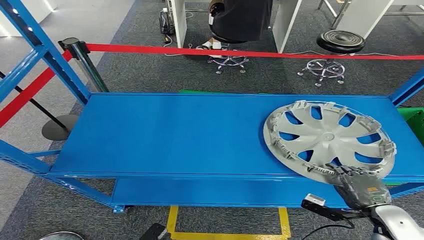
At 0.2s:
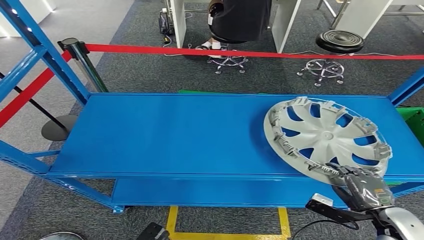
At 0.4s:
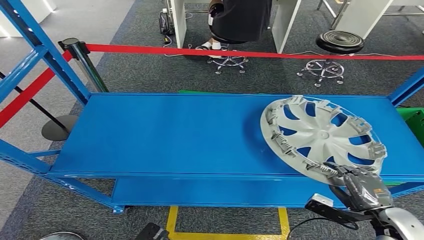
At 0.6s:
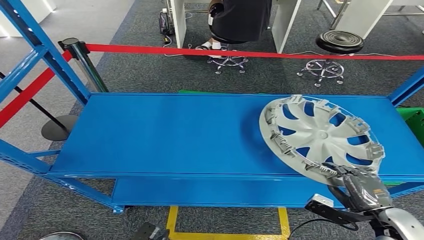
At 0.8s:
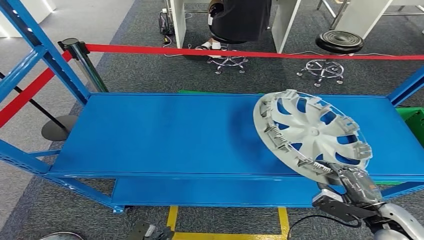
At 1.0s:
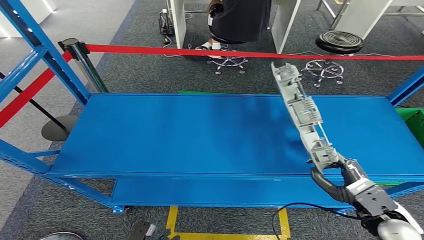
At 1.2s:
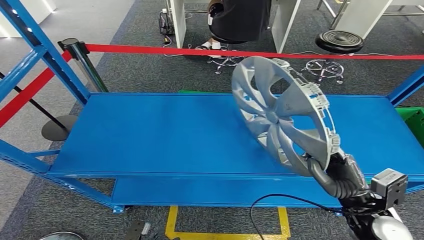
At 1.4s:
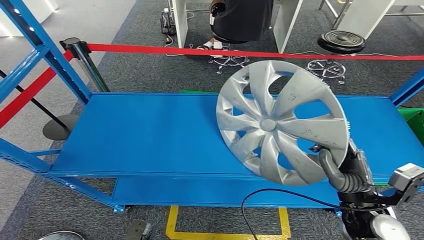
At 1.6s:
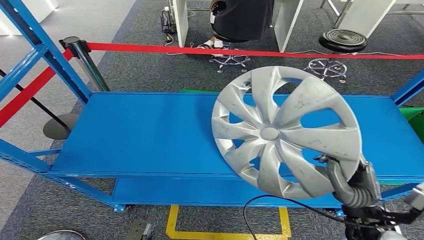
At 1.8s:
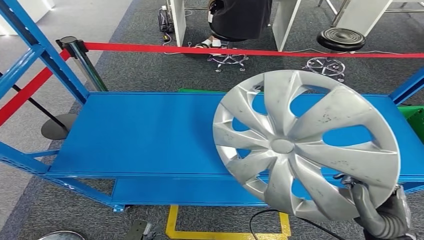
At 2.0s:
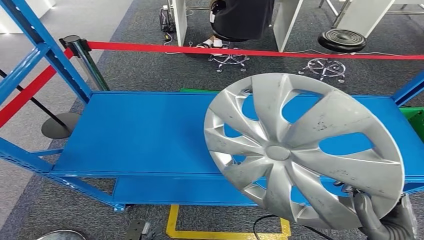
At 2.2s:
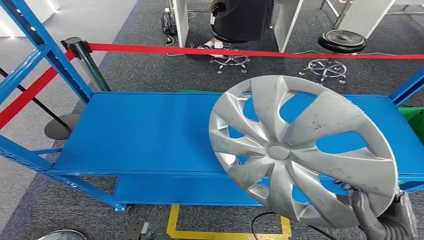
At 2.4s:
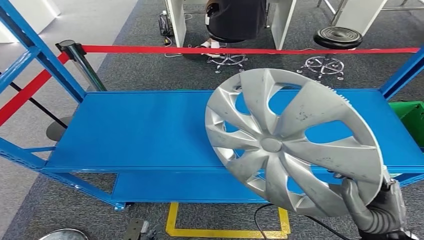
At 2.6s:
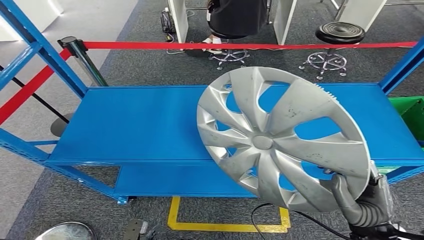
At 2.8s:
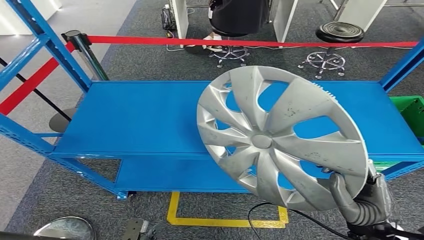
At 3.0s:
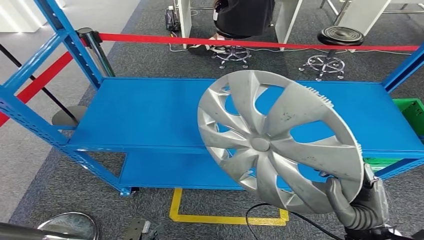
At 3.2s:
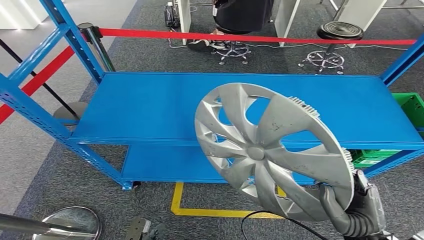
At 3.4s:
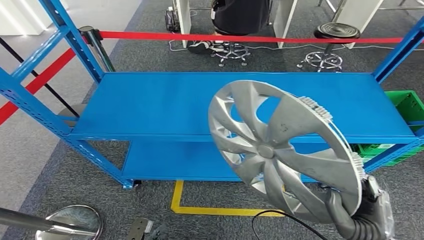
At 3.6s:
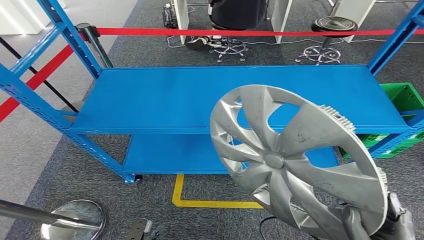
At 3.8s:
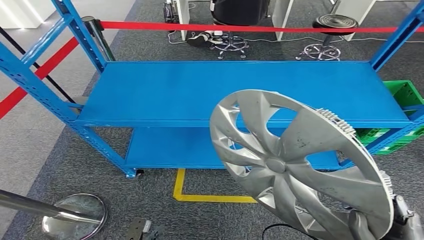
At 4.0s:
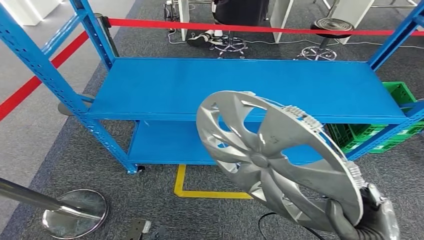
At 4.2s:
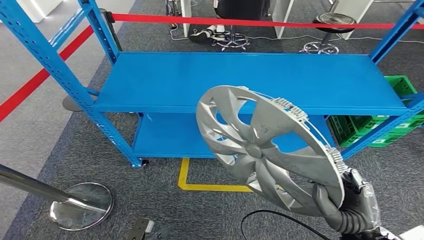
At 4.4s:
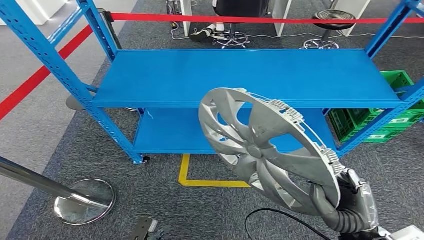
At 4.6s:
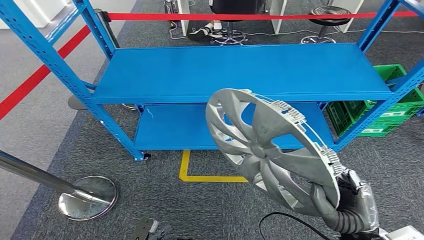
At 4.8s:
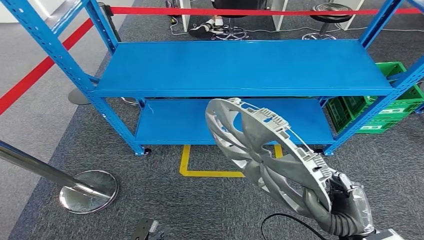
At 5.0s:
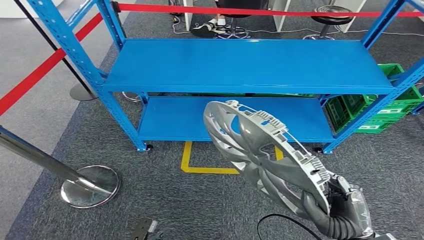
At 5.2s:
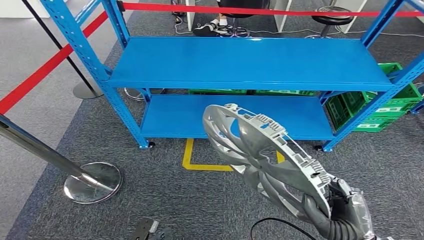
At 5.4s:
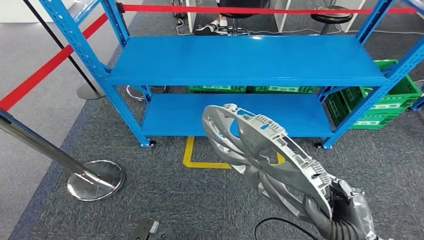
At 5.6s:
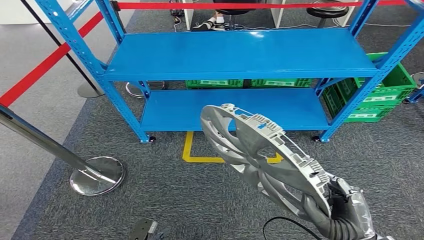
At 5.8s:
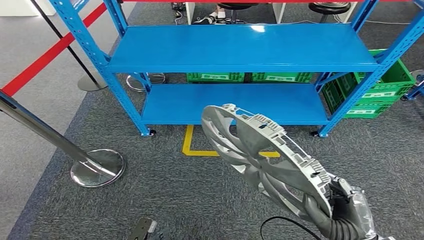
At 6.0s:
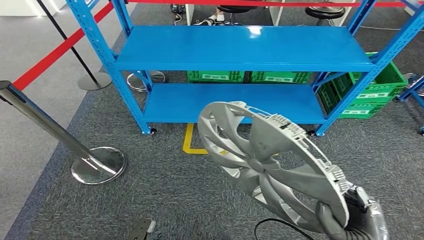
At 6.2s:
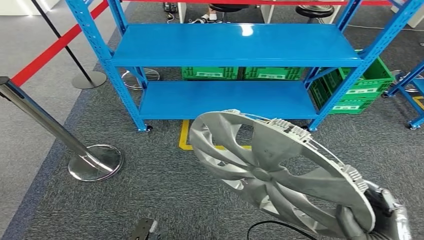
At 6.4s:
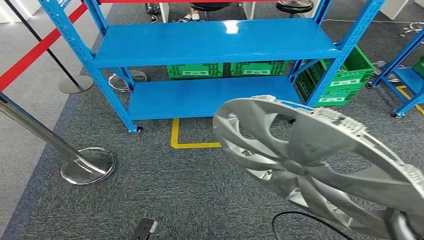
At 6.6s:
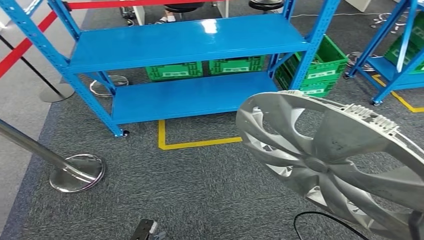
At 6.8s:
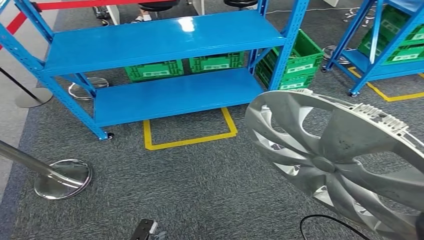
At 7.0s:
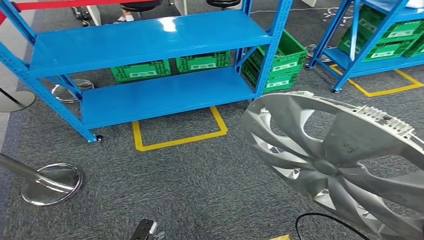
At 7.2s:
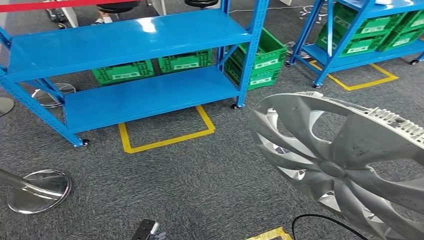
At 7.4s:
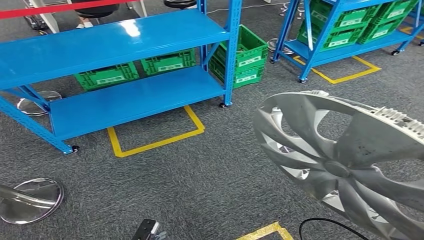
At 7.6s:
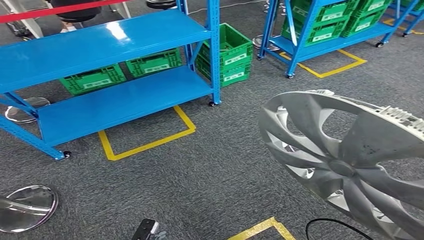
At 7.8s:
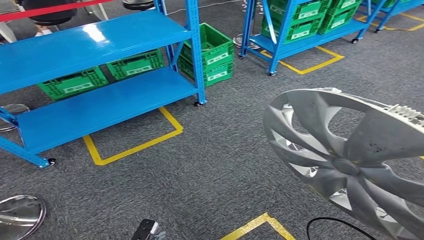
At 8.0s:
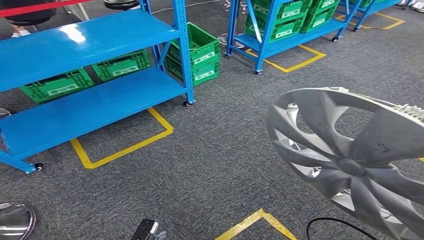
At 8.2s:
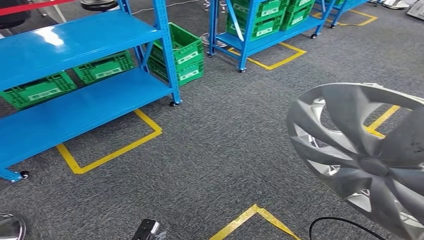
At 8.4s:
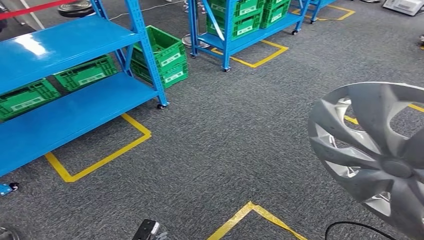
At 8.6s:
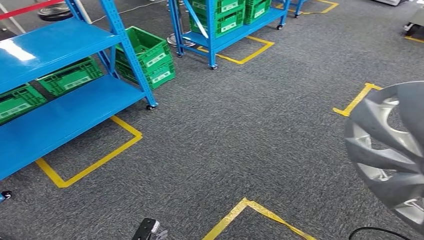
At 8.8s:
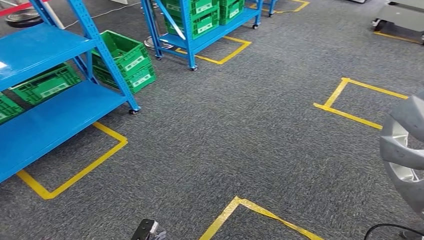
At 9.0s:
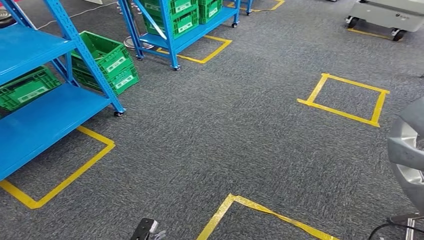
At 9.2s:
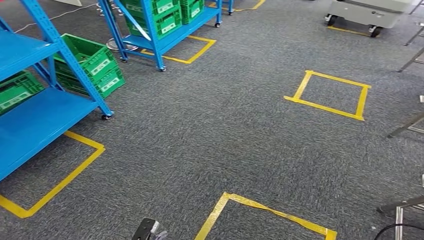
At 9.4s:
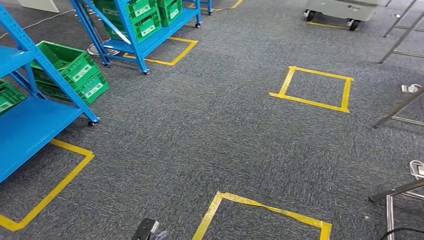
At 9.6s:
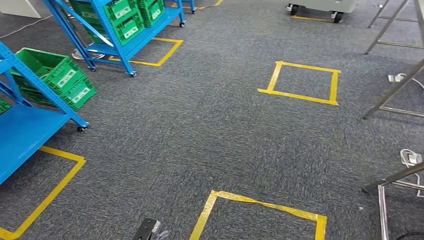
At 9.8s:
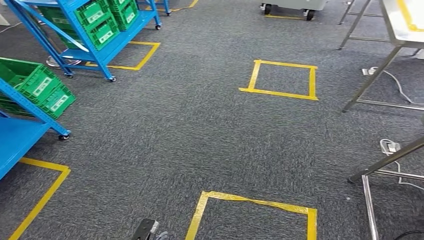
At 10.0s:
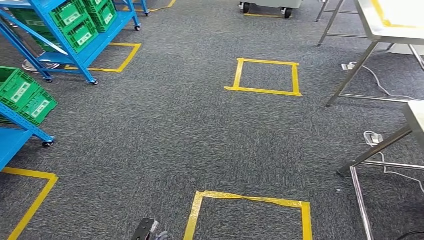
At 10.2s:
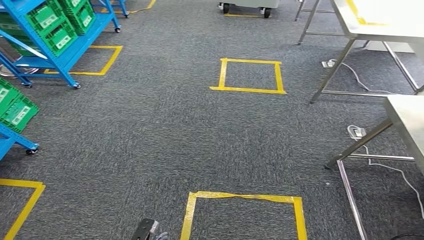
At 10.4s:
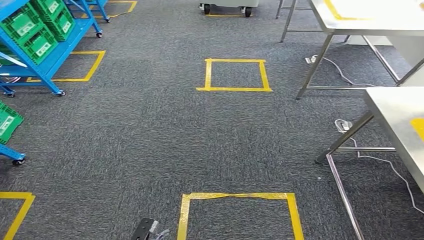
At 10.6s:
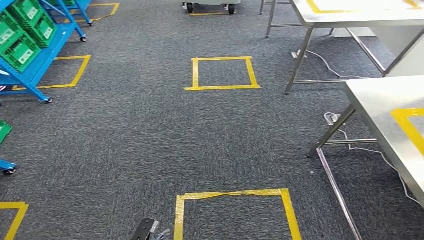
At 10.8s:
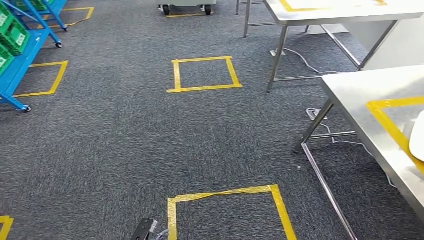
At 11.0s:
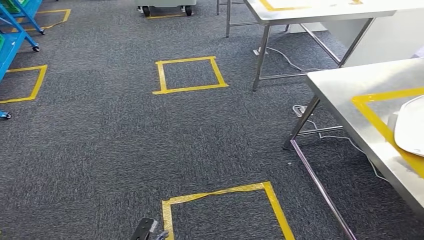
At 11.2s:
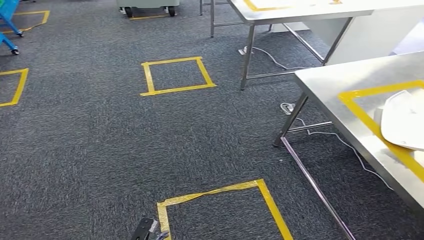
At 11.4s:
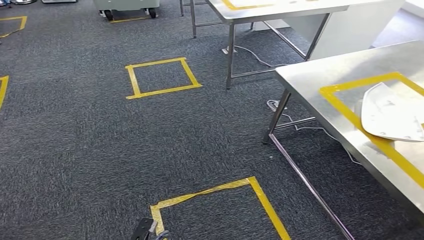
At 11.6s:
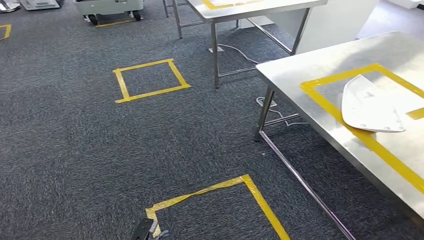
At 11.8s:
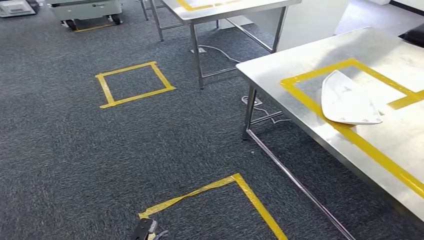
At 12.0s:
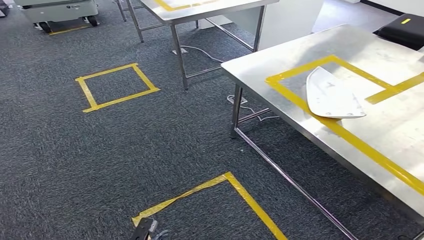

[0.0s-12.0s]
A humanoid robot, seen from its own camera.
Step, 0.0s to 3.6s: Take small components from the rack.

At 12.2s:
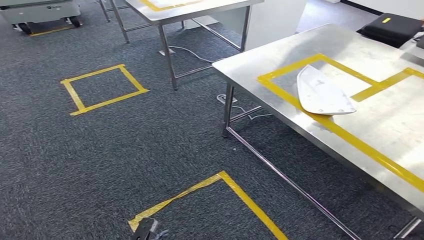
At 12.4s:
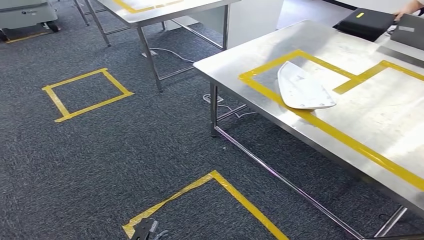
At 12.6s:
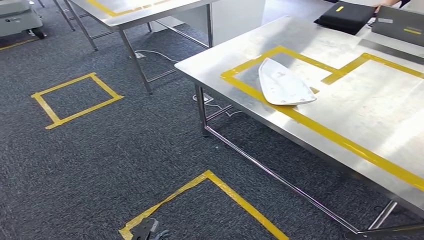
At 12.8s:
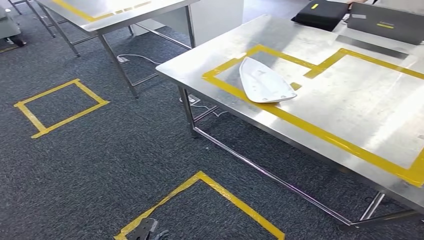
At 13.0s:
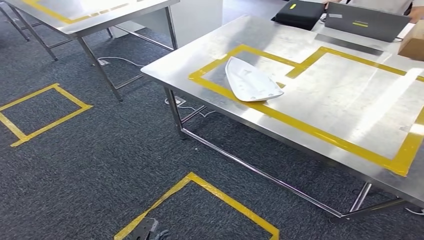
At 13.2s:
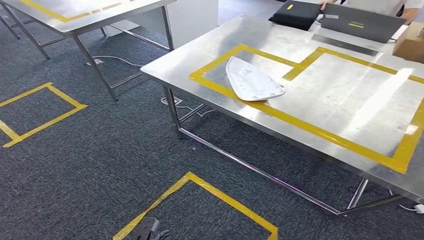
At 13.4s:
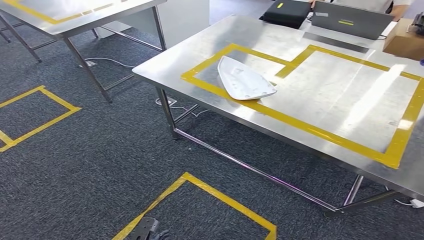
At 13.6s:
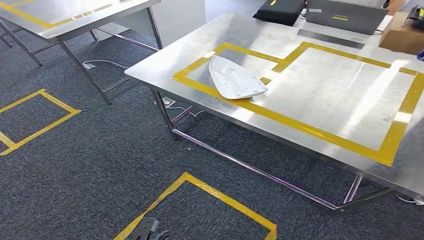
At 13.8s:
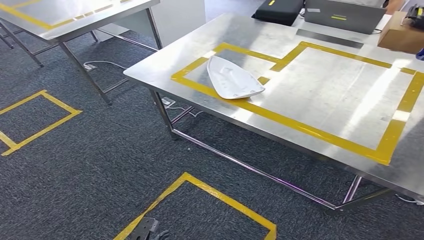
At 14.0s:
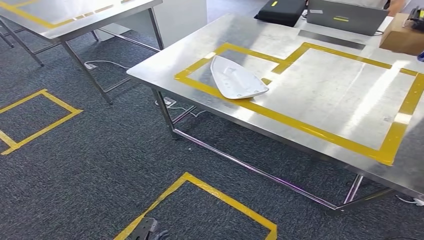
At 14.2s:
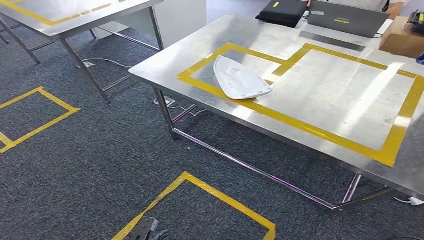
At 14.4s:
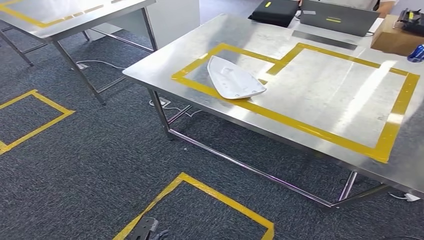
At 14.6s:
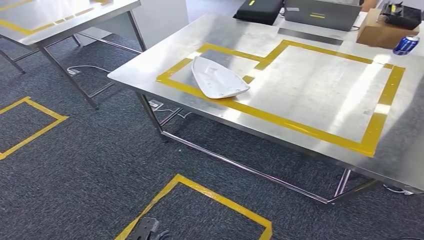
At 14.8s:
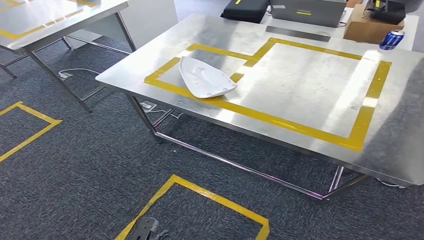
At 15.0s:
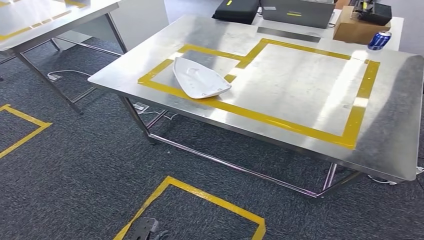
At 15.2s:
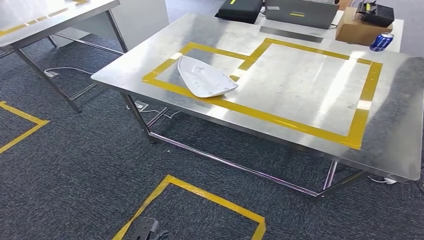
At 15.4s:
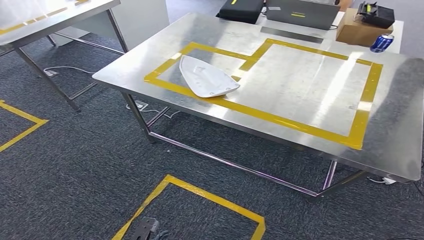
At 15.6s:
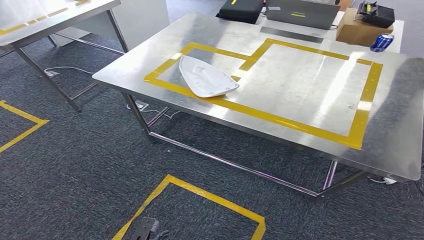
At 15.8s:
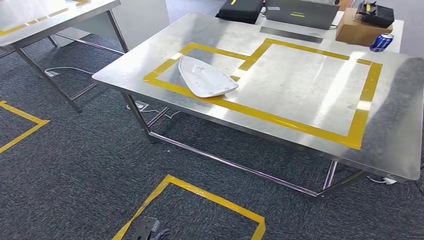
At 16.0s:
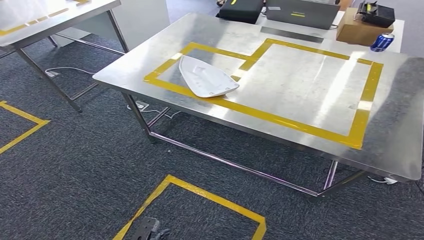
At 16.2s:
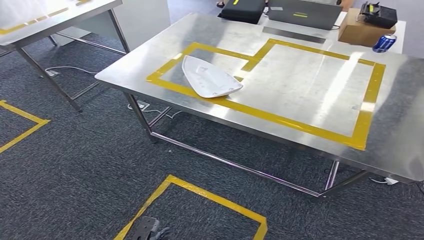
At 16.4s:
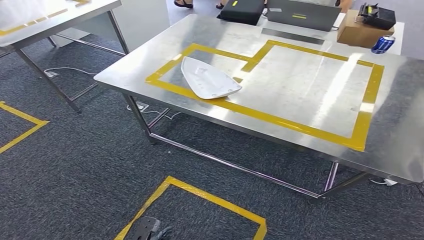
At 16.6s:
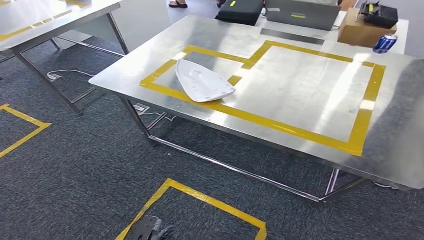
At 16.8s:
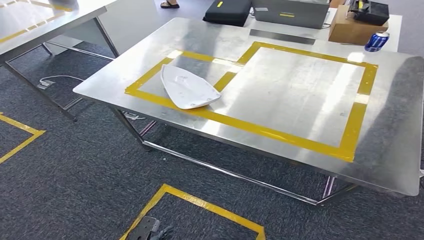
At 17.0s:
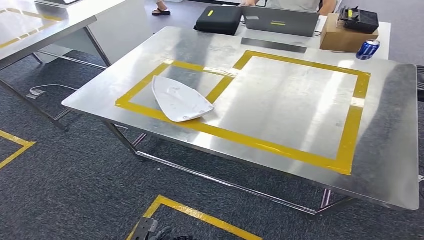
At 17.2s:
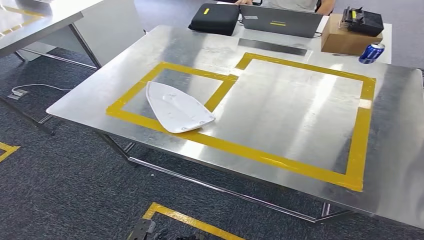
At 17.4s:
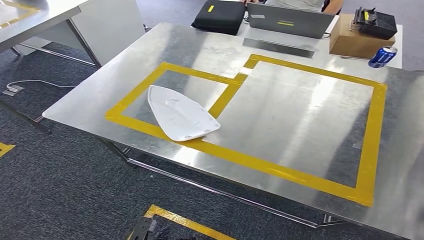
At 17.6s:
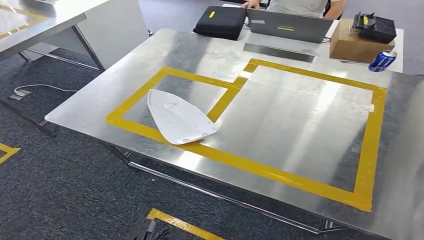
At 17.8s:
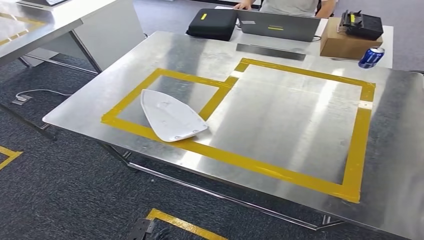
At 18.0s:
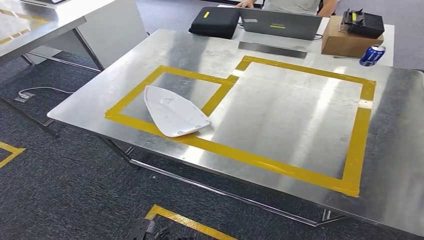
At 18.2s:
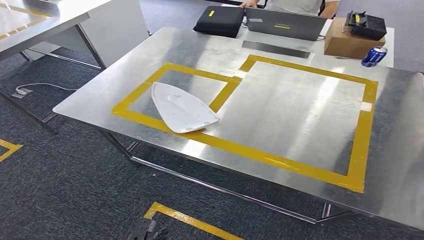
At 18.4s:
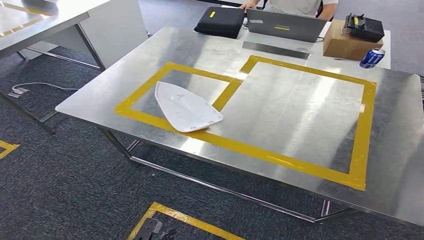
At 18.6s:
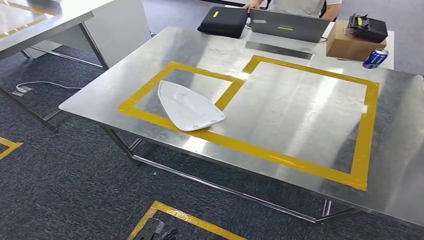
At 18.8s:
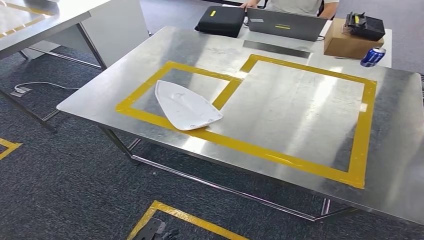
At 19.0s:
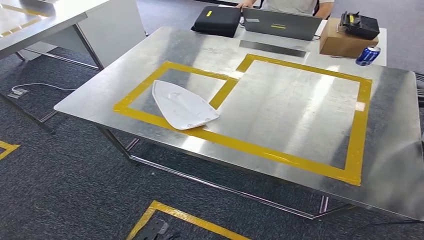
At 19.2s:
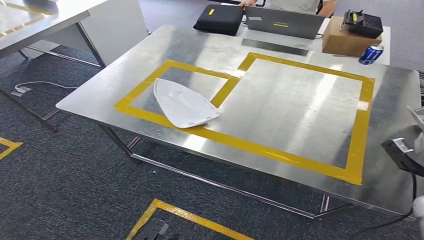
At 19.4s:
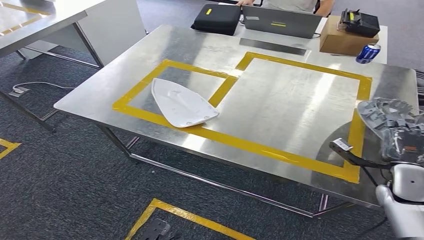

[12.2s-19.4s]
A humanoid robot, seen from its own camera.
15.0s to 16.6s: The hands move only a little.
